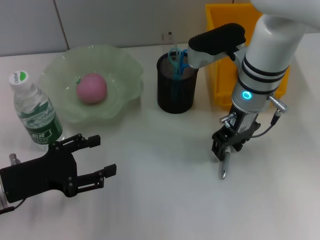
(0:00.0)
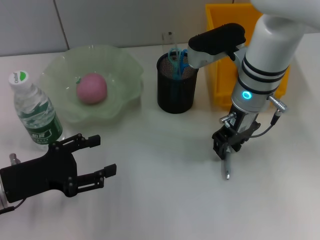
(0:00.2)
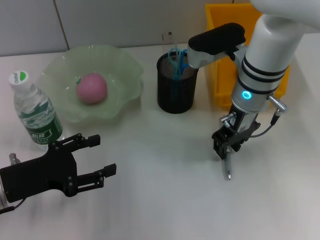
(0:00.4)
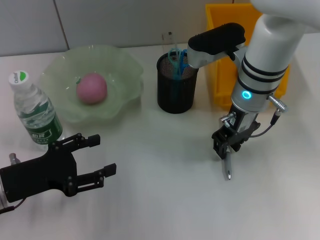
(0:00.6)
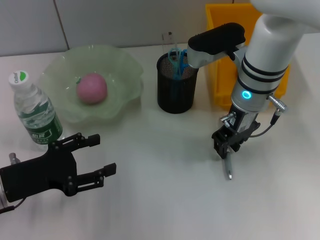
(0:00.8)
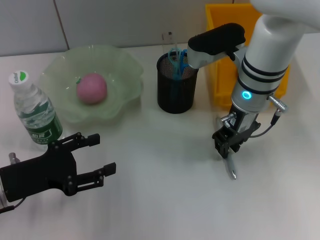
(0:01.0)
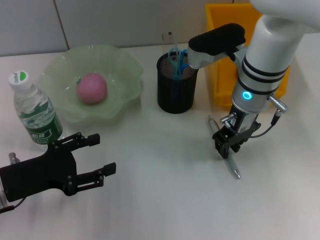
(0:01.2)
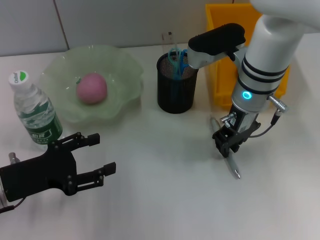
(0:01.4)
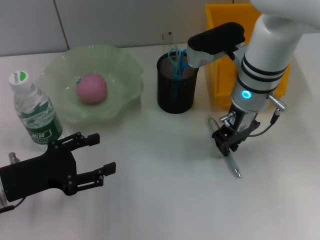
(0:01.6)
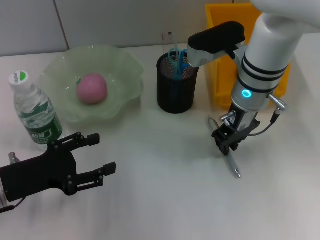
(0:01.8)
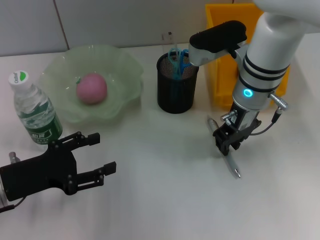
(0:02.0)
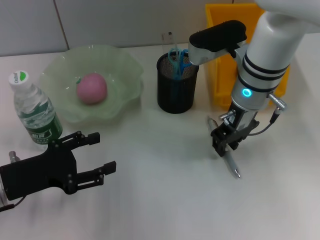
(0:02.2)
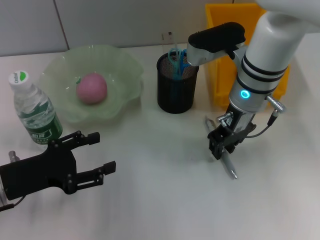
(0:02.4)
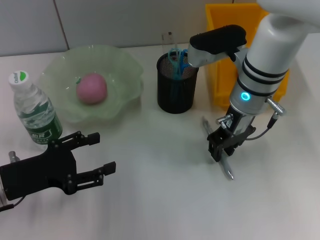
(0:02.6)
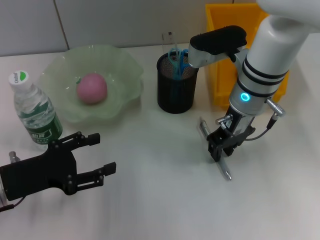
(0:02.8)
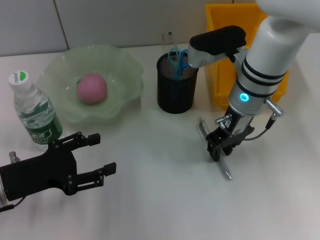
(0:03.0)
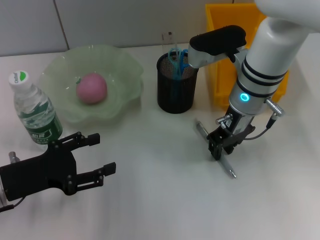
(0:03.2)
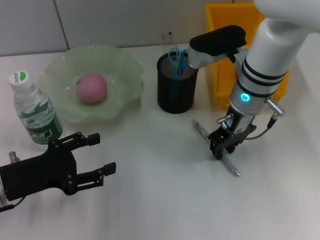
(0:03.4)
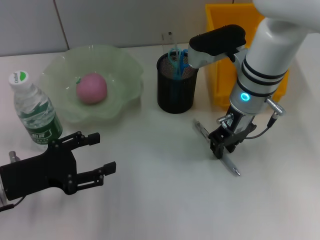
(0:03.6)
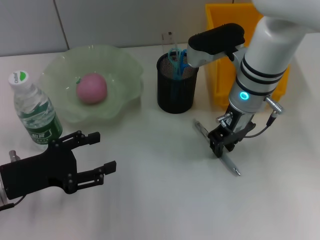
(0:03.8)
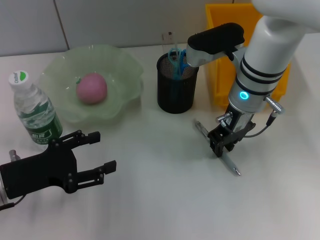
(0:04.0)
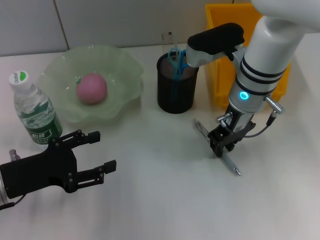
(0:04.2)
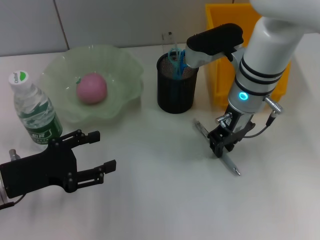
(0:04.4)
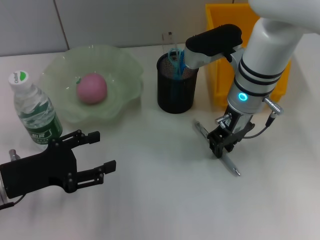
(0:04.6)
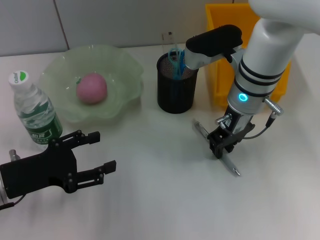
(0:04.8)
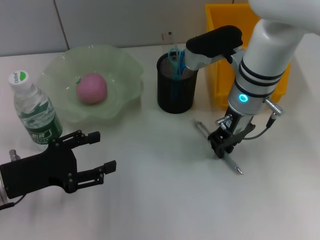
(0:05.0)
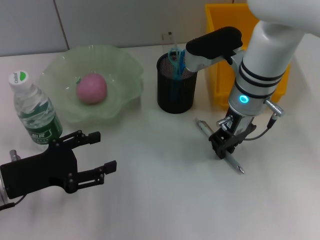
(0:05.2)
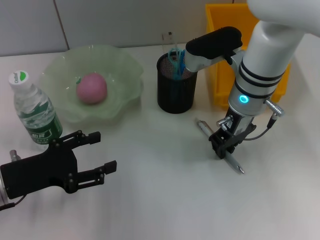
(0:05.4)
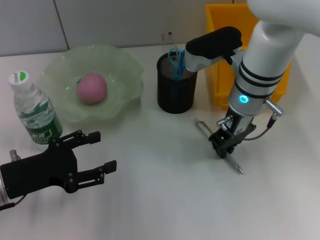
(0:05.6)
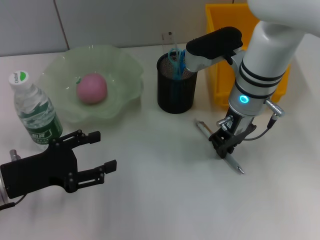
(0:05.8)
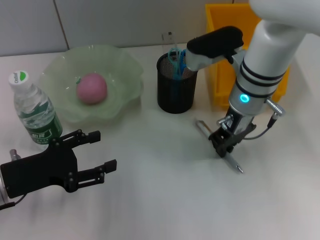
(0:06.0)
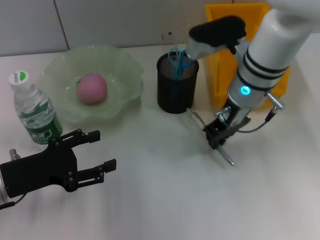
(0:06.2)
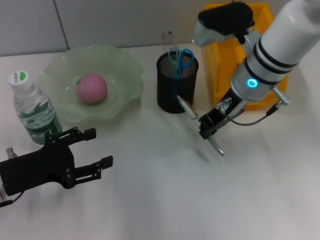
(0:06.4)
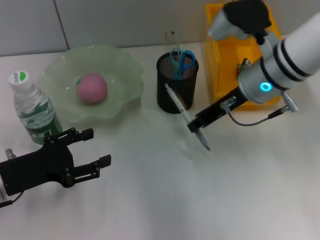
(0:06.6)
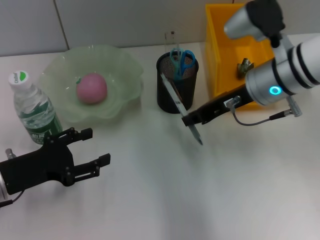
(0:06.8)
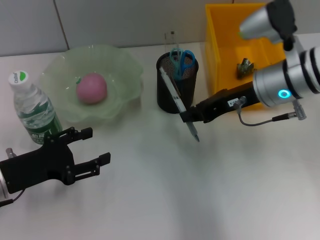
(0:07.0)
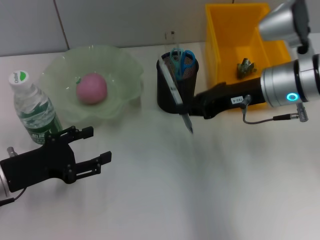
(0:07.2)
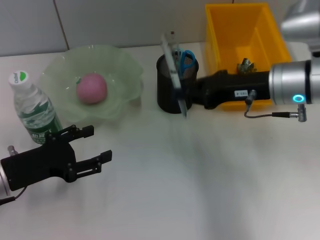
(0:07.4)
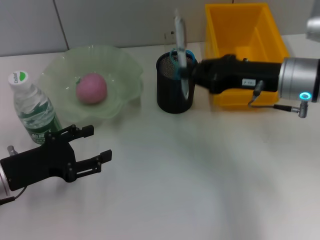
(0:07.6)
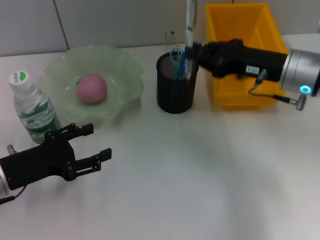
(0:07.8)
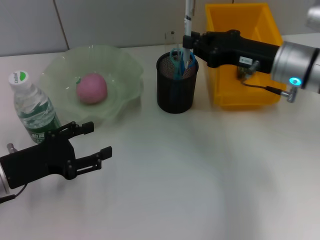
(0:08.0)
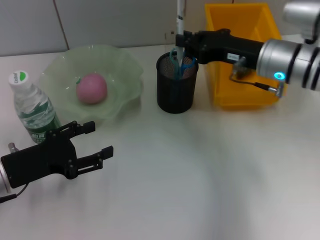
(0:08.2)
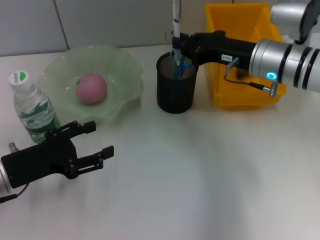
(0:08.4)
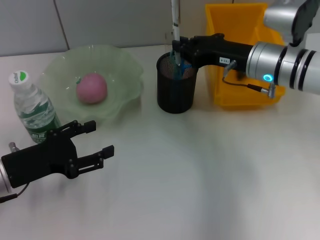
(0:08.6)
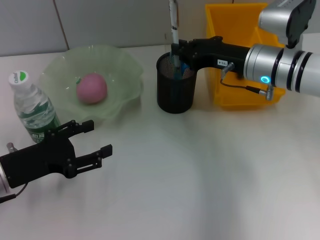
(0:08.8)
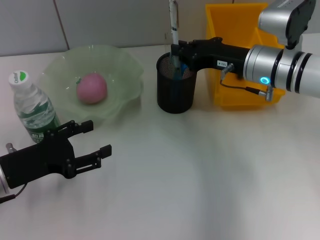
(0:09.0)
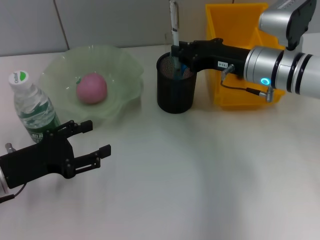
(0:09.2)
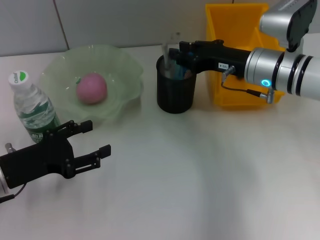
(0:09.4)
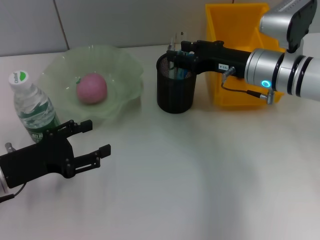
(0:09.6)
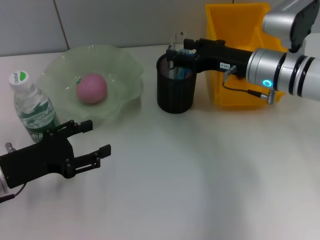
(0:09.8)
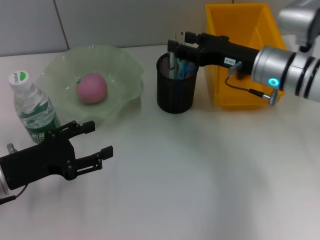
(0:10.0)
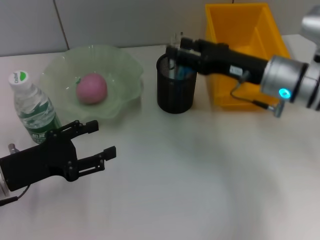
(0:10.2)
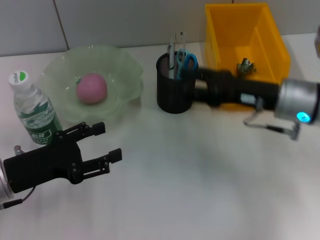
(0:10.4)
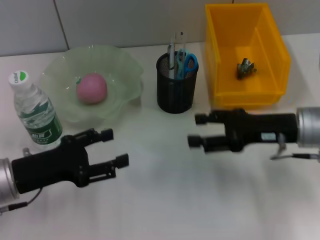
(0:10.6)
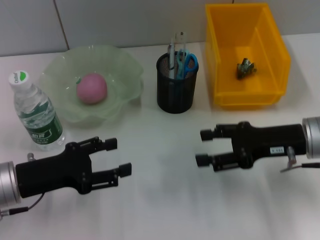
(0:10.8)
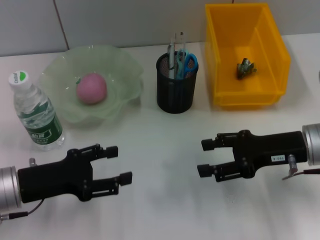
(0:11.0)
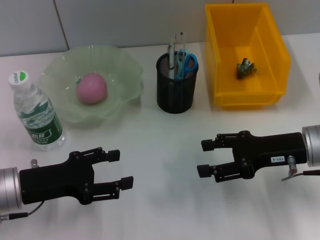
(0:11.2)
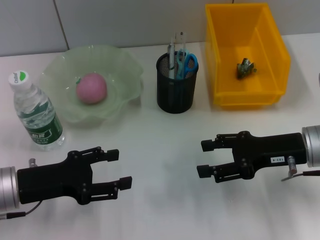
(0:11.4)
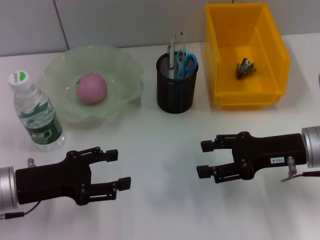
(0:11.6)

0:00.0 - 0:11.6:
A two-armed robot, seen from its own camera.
Step, 0:00.0 - 0:05.2: Grab the gray spring-action pen with the right hand.
Step, 0:05.4 - 0:09.6: Place the gray spring-action pen into the pen holder with the right hand.
0:00.0 - 0:05.8: The two grippers keep their place.
0:05.8 - 0:07.2: The right gripper moves to the right, some 5 cm.
0:07.2 - 0:08.8: The right gripper shifts by some 5 cm.
0:08.8 - 0:10.2: The right gripper opens.
0:10.2 - 0:11.6: The right gripper moves backward, roughly 5 cm.

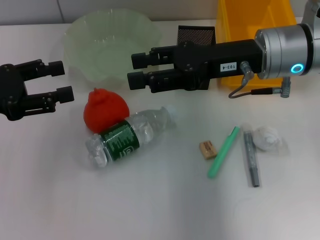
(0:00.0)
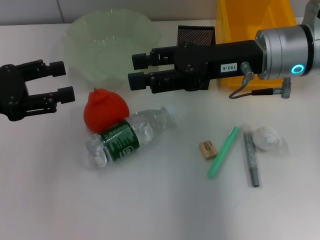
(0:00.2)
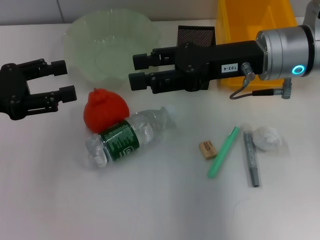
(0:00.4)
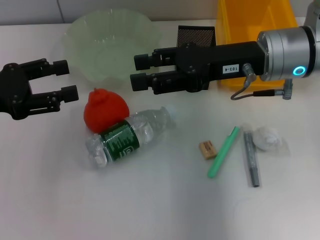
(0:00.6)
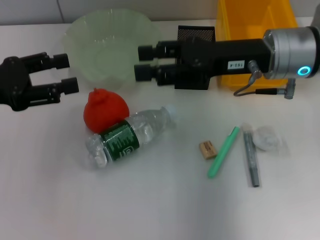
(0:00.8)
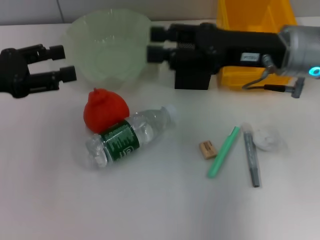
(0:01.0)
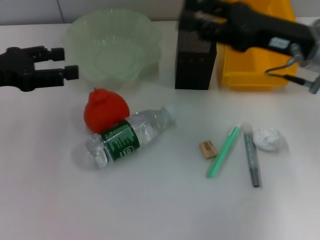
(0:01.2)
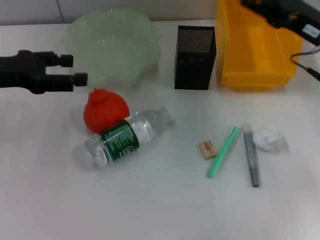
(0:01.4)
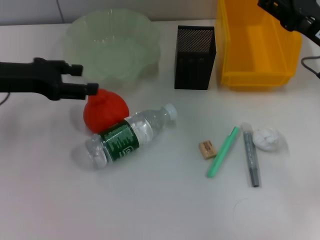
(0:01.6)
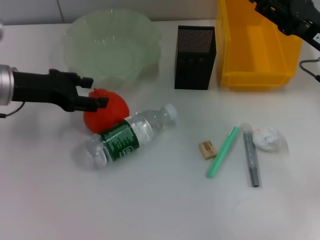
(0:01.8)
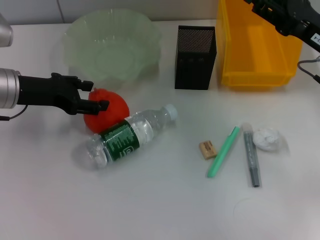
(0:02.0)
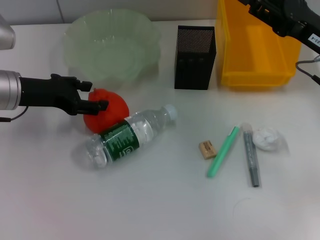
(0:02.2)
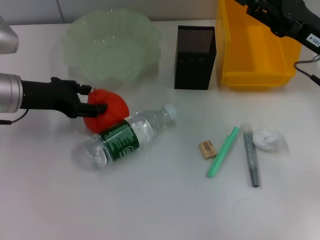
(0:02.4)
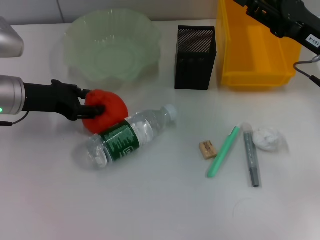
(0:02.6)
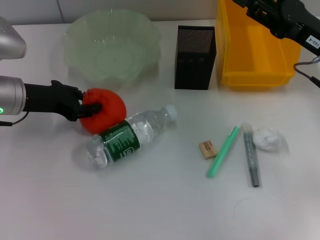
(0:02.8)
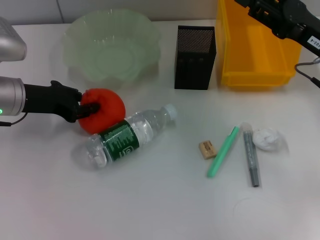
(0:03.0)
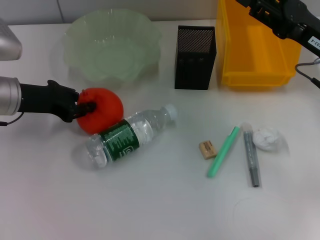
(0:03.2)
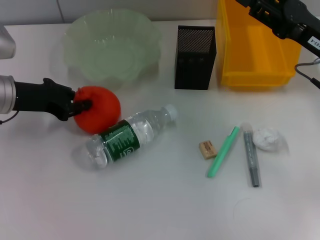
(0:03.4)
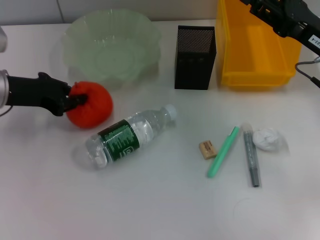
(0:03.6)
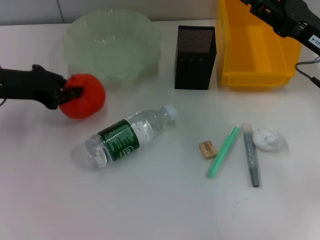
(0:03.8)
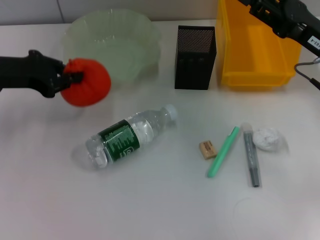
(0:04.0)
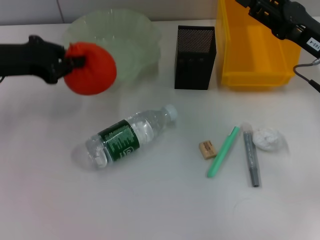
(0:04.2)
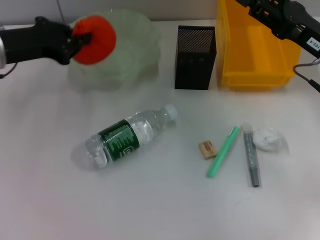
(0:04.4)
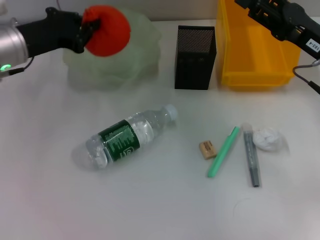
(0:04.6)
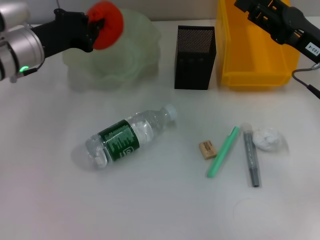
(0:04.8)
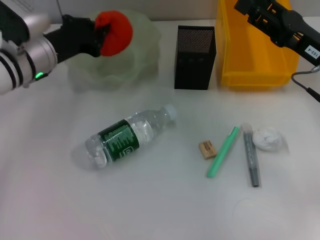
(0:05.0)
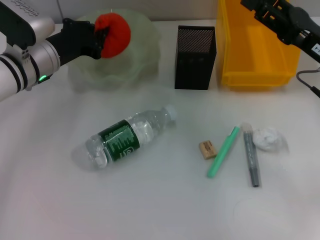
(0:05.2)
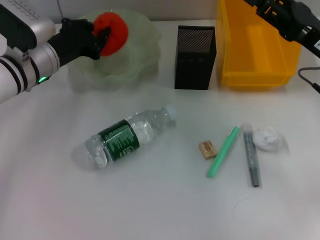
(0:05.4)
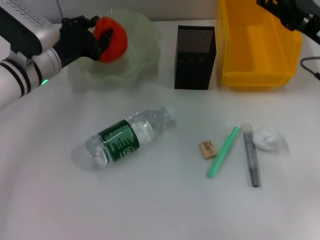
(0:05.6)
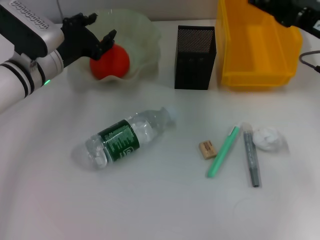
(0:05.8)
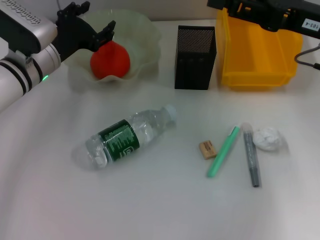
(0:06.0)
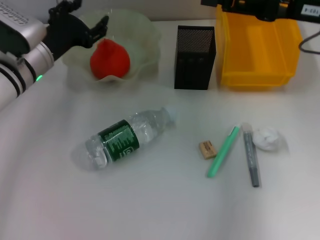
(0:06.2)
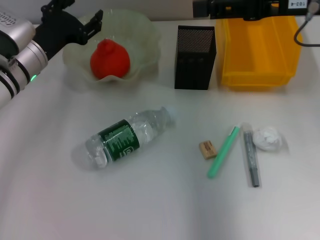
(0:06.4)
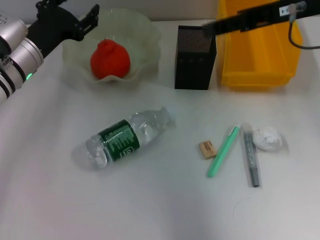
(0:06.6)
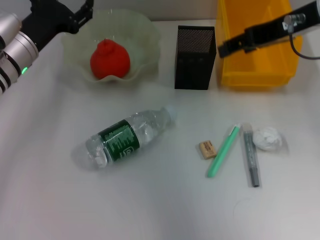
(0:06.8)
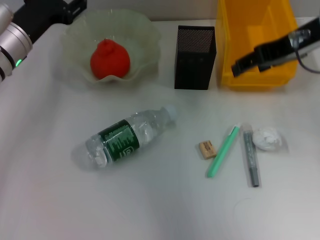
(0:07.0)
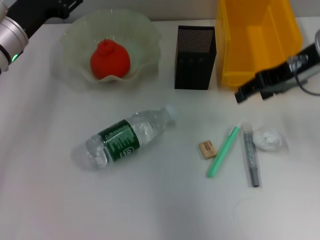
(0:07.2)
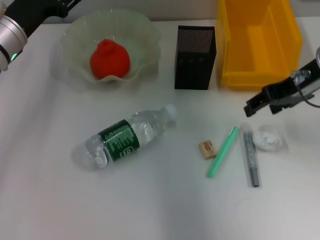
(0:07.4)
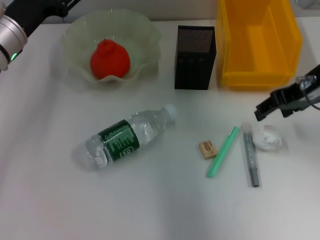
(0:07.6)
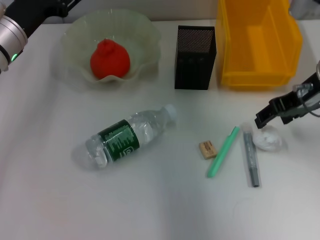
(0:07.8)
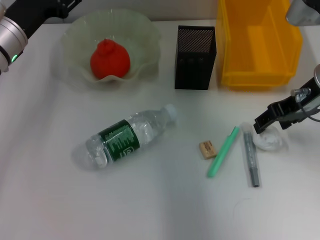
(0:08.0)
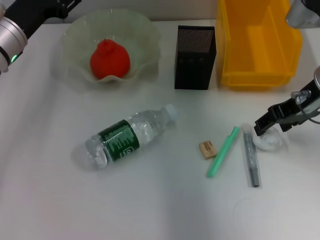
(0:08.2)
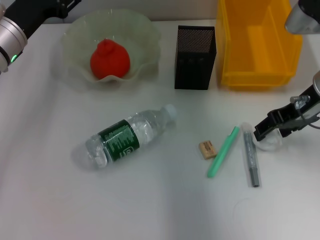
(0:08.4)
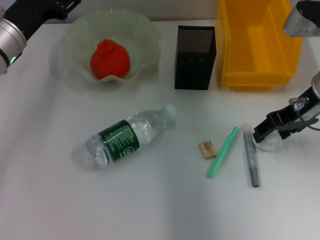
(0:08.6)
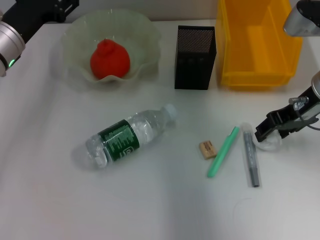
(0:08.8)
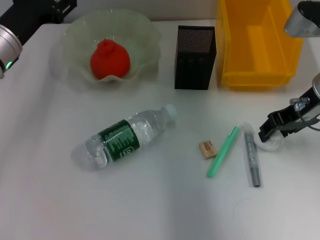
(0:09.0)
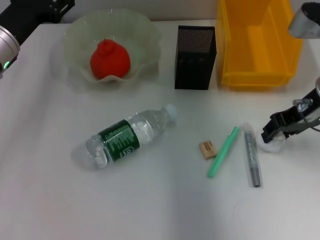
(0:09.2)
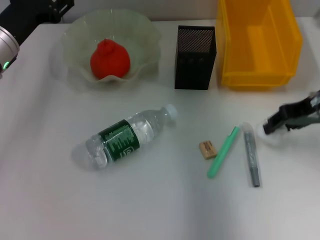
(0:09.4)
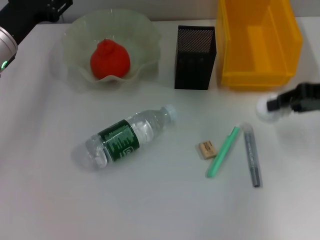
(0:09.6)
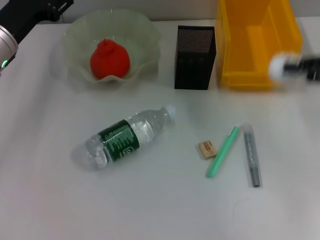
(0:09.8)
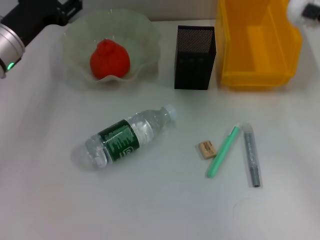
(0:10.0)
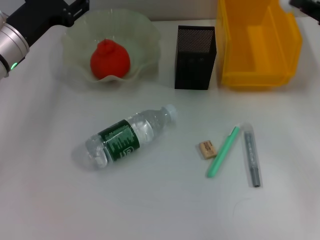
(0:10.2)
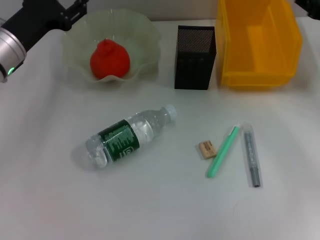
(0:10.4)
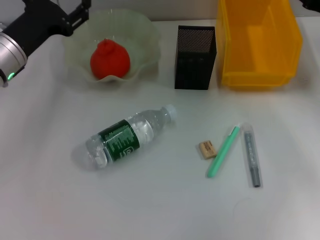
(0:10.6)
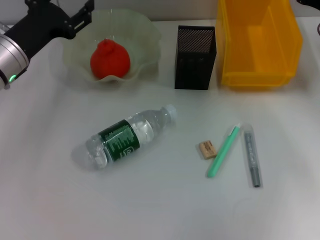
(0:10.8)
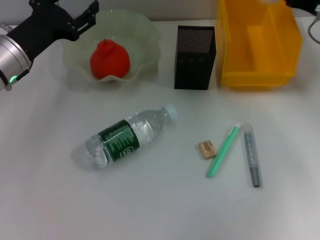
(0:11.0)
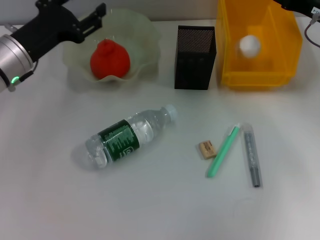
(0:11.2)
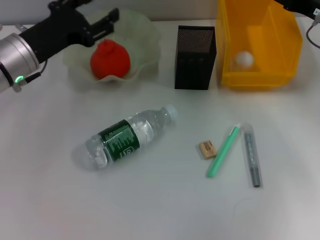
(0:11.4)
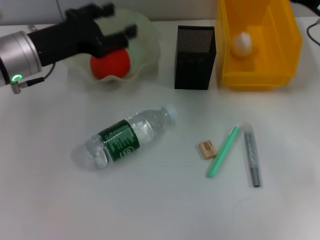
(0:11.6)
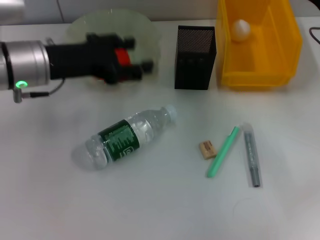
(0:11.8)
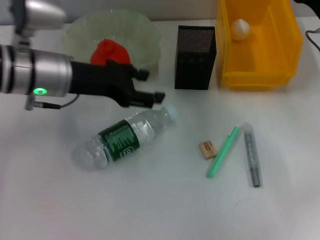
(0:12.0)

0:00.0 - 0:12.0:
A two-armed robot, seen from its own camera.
Step, 0:00.0 - 0:03.0: Grab the orange with the left hand.
Step, 0:03.2 - 0:05.6: Place the orange into the fruit bowl with the left hand.
Step, 0:06.0 - 0:08.8: Grab the paper ball with the right hand.
Step, 0:09.0 - 0:11.0: Place the paper ball into the trash can with the right hand.
0:00.0 - 0:01.6: The right gripper heads to the right, covering some 10 cm. Meanwhile the left gripper heads forward, covering some 5 cm.
0:01.6 - 0:03.0: The left gripper shifts by some 5 cm, and closes up.
0:03.0 - 0:04.4: The left gripper ends up some 5 cm from where it was, and closes.
0:04.4 - 0:06.0: The left gripper shifts about 10 cm downward and to the right, and opens; the right gripper shifts some 5 cm upward.
0:07.6 - 0:09.0: The grippers move only a little.
0:09.0 - 0:10.4: The right gripper shifts roughly 10 cm to the right.
0:10.4 - 0:12.0: The right gripper shifts about 5 cm to the left, and opens; the left gripper moves to the right, approximately 5 cm.
